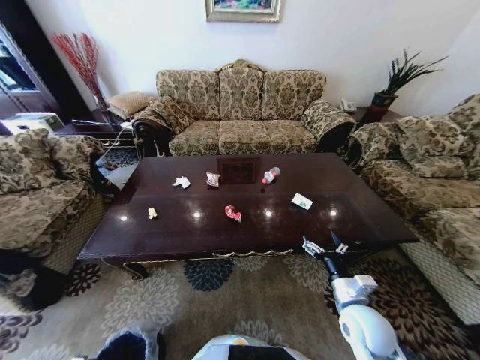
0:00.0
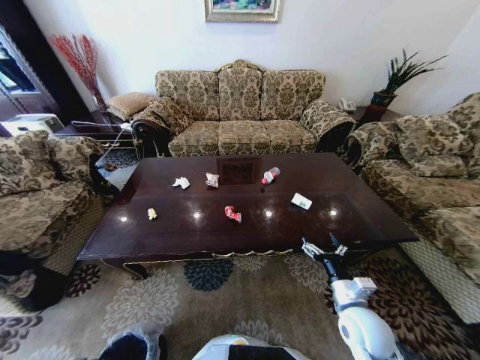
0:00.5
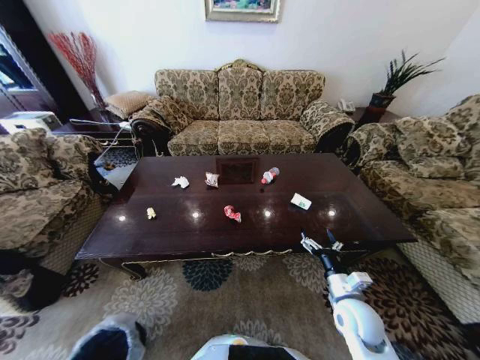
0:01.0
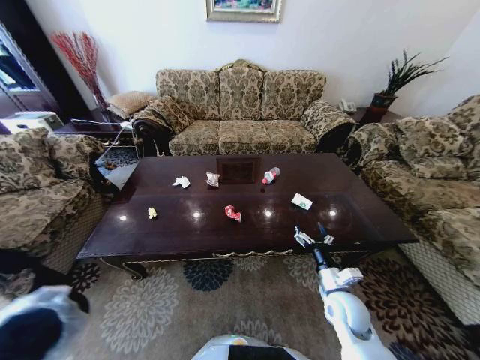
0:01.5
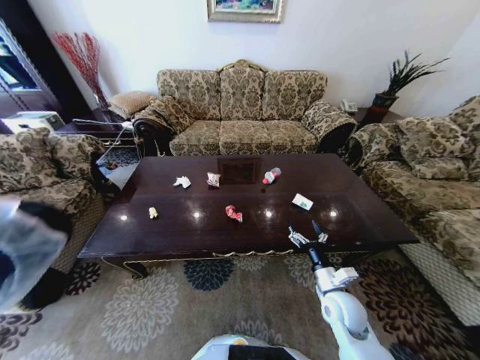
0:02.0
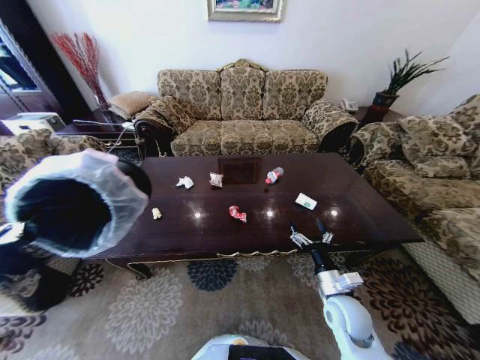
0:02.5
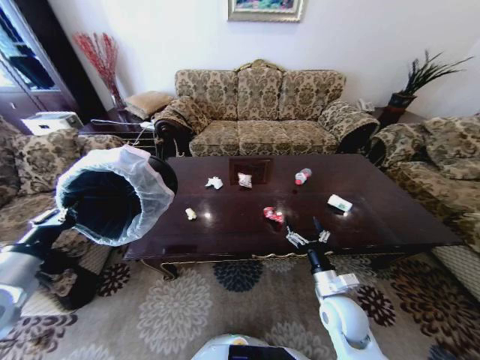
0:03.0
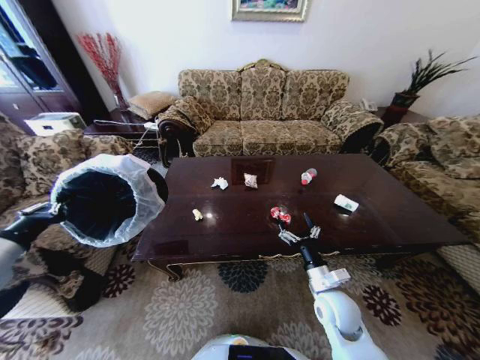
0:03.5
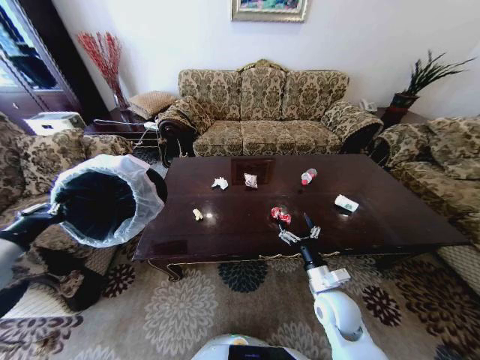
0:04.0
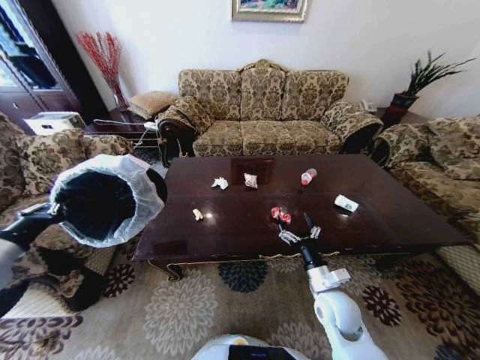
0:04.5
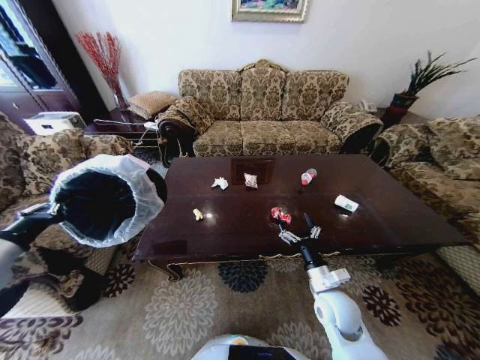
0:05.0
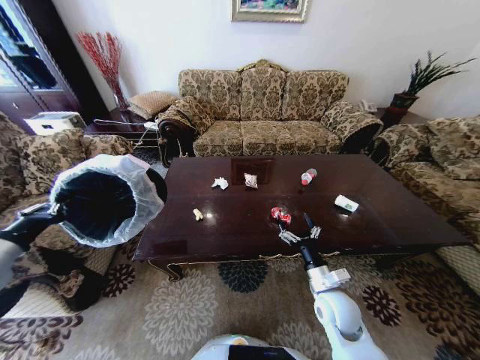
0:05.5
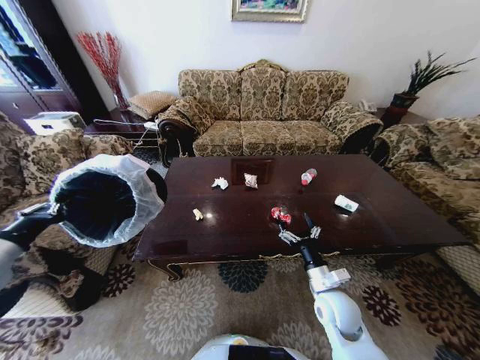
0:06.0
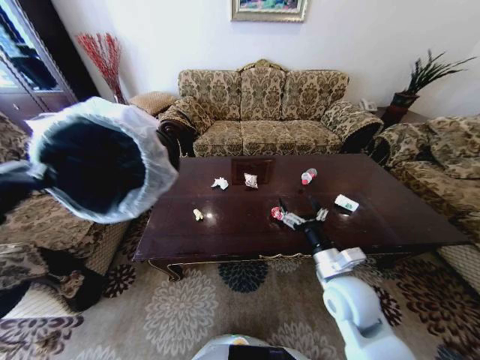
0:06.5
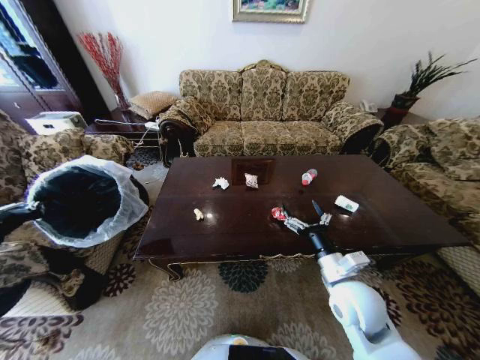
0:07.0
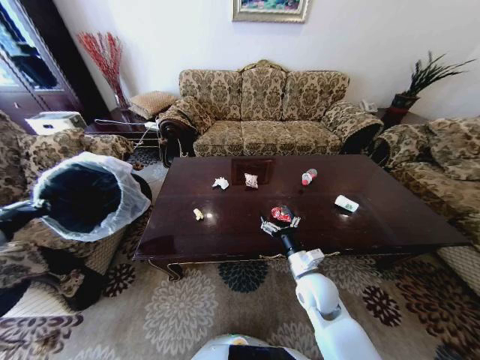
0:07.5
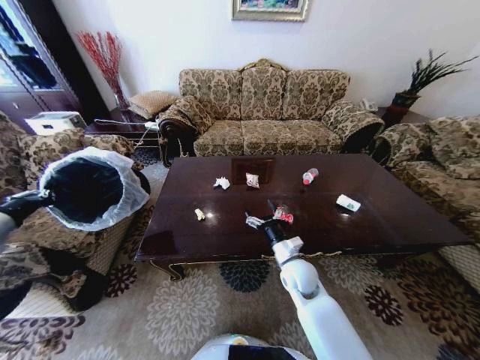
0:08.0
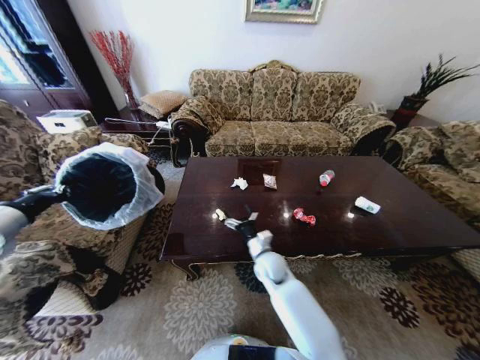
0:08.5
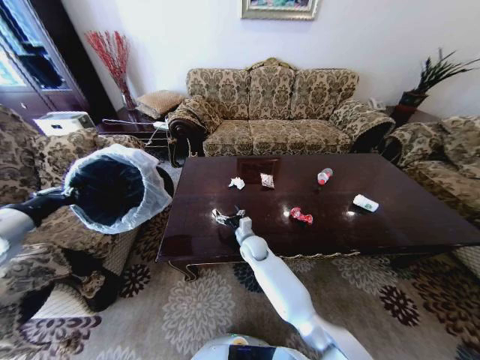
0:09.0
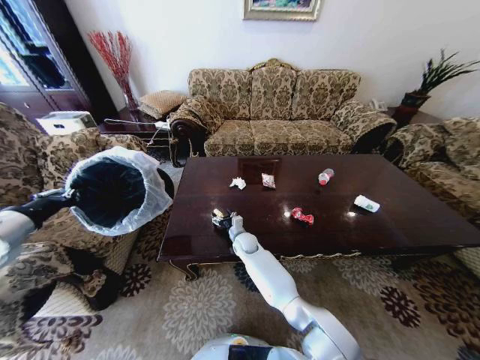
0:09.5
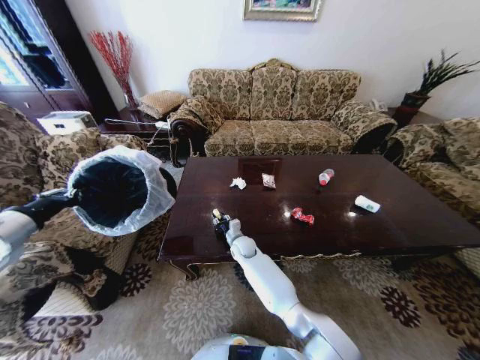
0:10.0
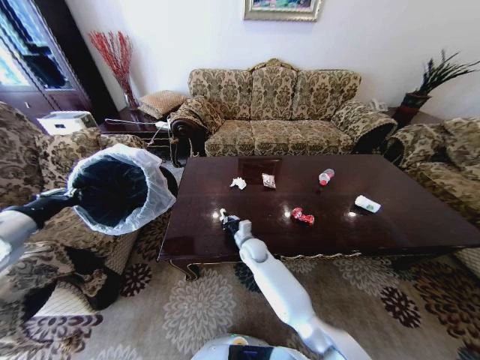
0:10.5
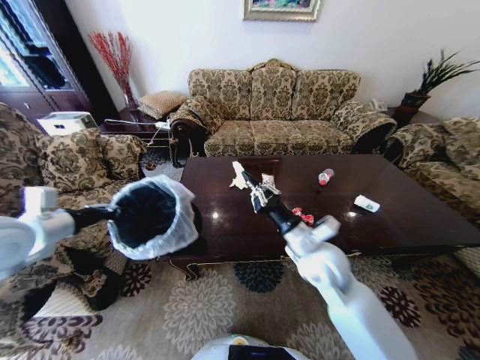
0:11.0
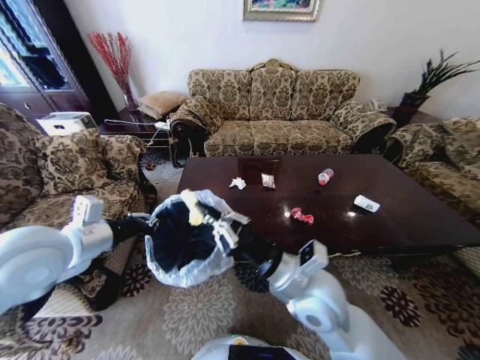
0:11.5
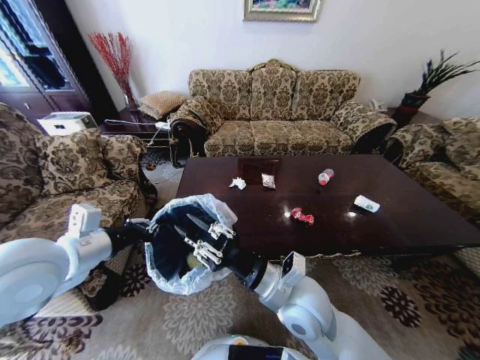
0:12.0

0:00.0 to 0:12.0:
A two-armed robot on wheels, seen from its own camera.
Task of the whole recording: Move to the front of the table and place the trash on the table into the trash bin.
0:00.0 to 0:02.0: The right gripper ends up approximately 5 cm from where it was, while the left gripper moves upward, about 40 cm.
0:02.0 to 0:04.0: The left gripper goes about 25 cm forward and to the right.
0:04.0 to 0:06.0: The two grippers keep their place.
0:06.0 to 0:08.0: The right gripper shifts about 10 cm to the left and forward, and moves about 10 cm upward and comes back. Meanwhile the left gripper travels forward by roughly 5 cm, and moves approximately 10 cm to the right and comes back.
0:08.0 to 0:10.0: The left gripper heads to the right, covering approximately 5 cm, while the right gripper shifts roughly 25 cm to the left, forward and downward, and closes.
0:10.0 to 0:12.0: The left gripper is displaced to the right by some 15 cm. Meanwhile the right gripper travels backward, upward and to the right by some 35 cm.

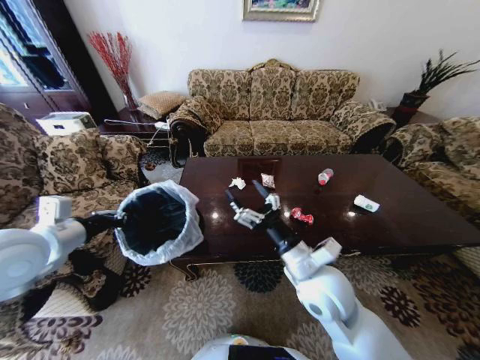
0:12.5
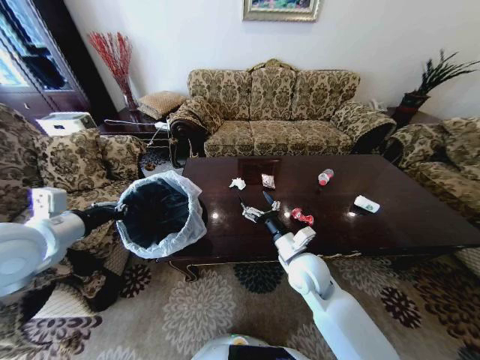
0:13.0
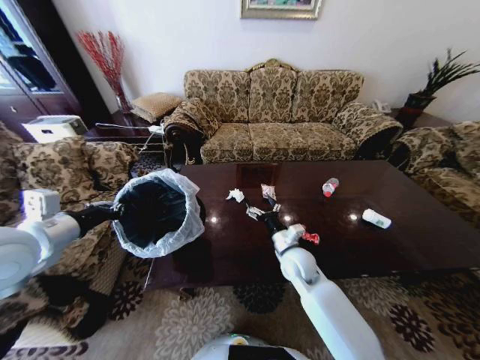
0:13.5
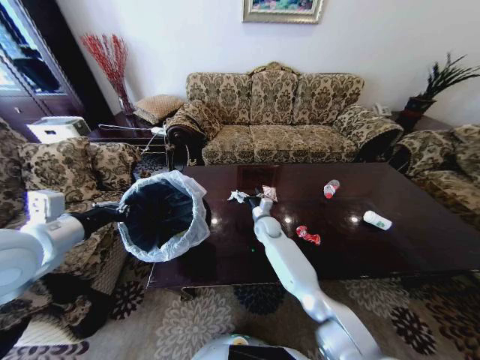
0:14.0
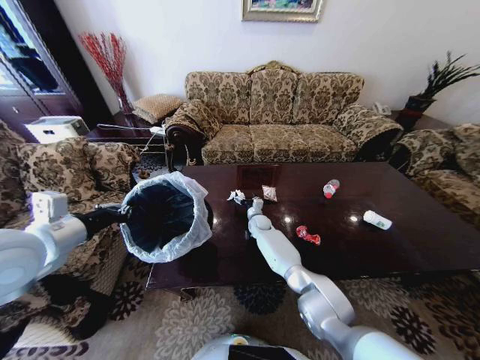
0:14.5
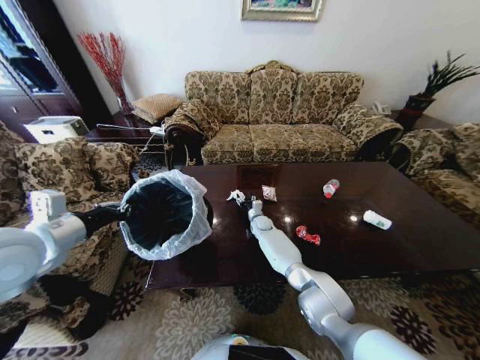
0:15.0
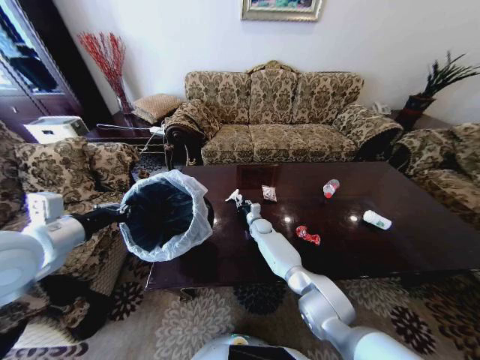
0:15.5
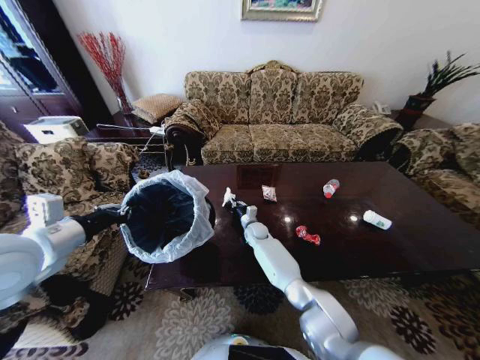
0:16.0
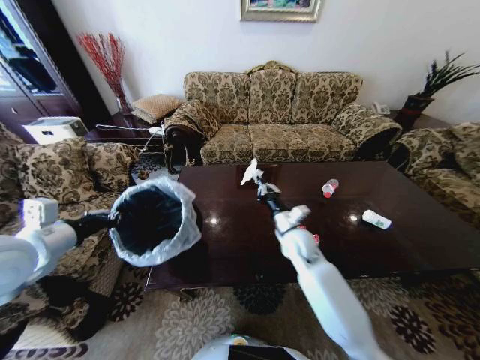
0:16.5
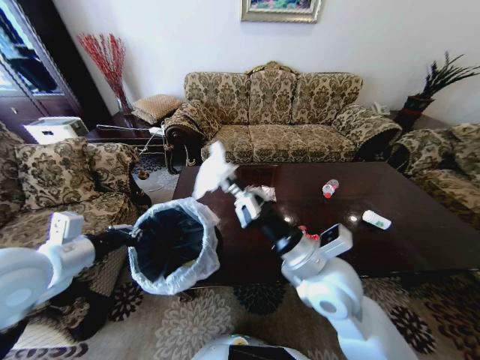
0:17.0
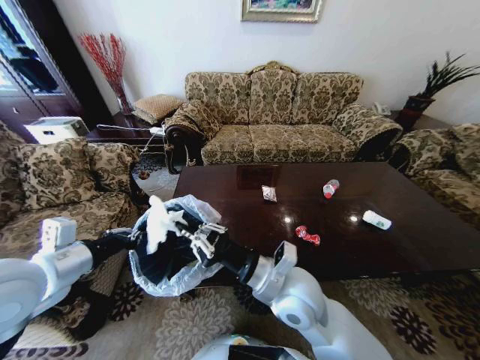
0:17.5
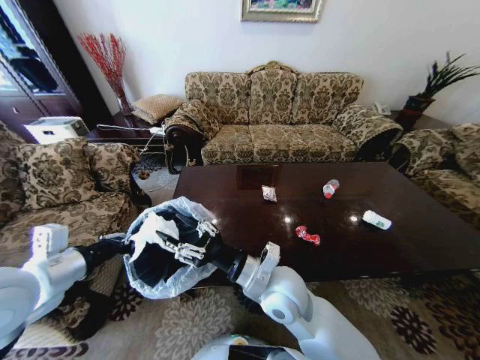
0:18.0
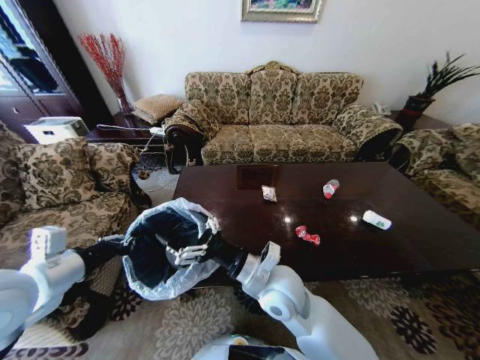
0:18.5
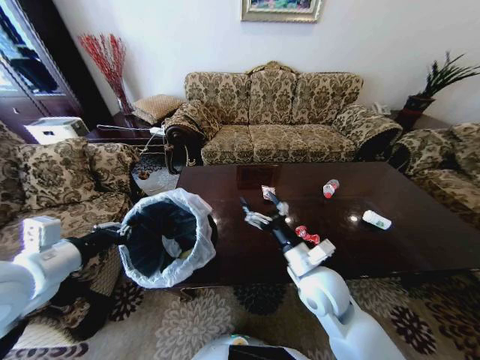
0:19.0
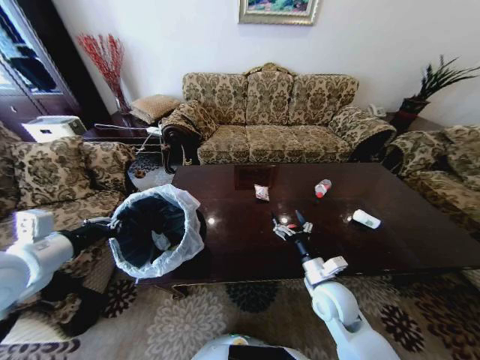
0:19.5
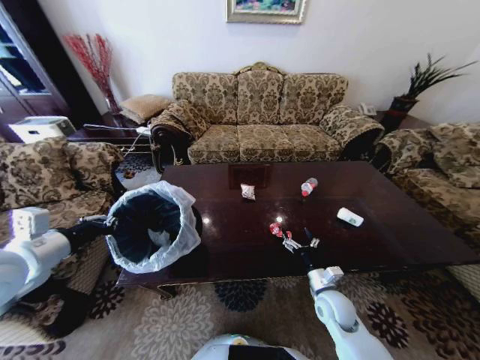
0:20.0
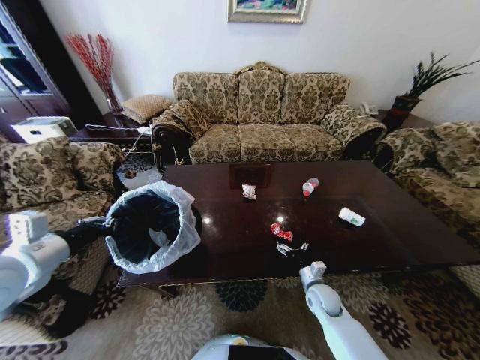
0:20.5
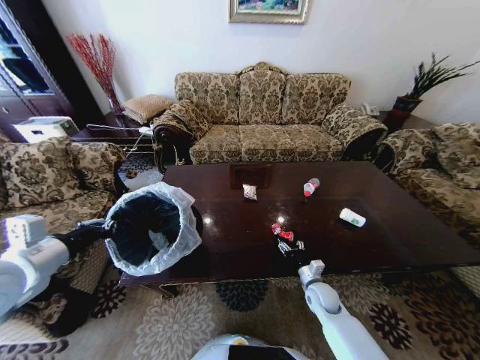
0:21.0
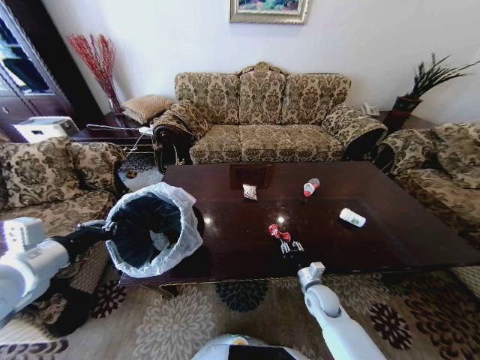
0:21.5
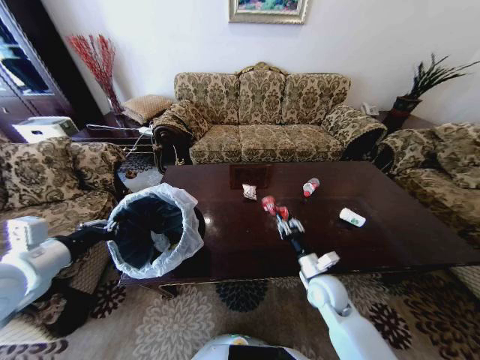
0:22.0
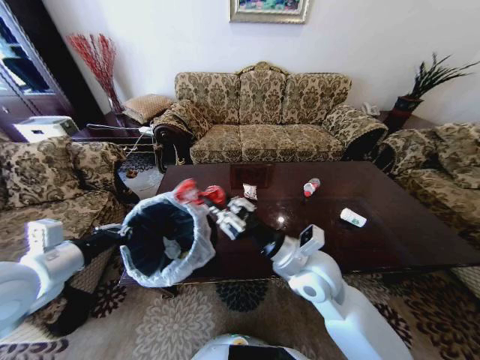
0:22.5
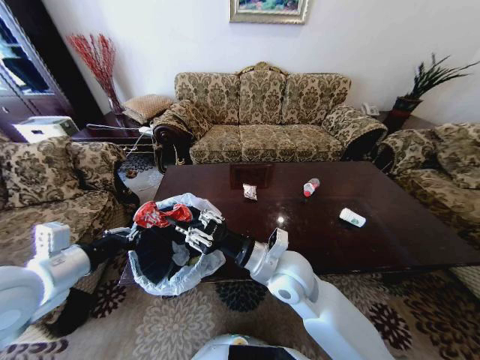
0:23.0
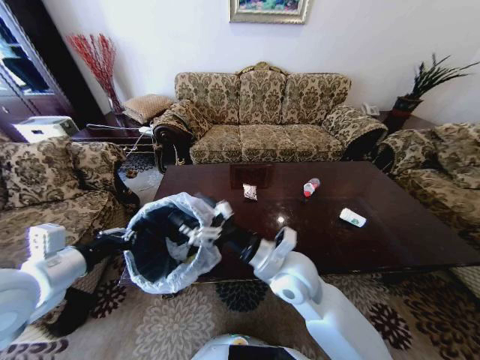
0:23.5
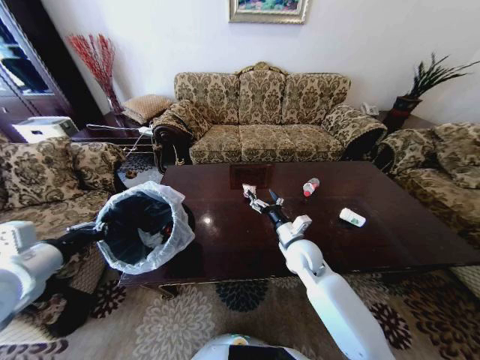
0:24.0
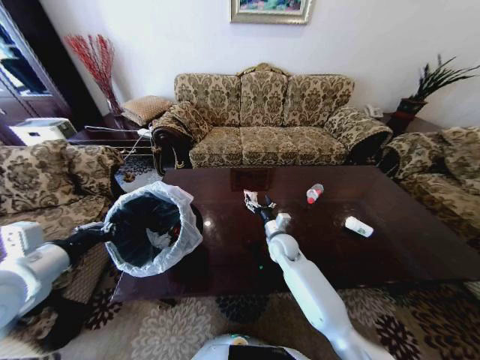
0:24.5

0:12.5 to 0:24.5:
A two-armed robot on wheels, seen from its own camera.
Task of the whole recording: Move to the front of the table and place the trash on the table into the trash bin.
0:12.5 to 0:14.5: The right gripper heads forward and downward, covering roughly 40 cm.
0:14.5 to 0:16.5: The right gripper moves backward, upward and to the right, about 25 cm, and closes up.
0:16.5 to 0:18.5: The left gripper changes place by some 5 cm, while the right gripper goes about 15 cm backward and to the left, and opens up.
0:18.5 to 0:20.5: The right gripper moves downward and to the right, some 30 cm.
0:20.5 to 0:22.5: The right gripper moves upward and to the left, about 30 cm, and closes up.
0:22.5 to 0:24.5: The right gripper heads downward and forward, covering some 25 cm, and opens its fingers.

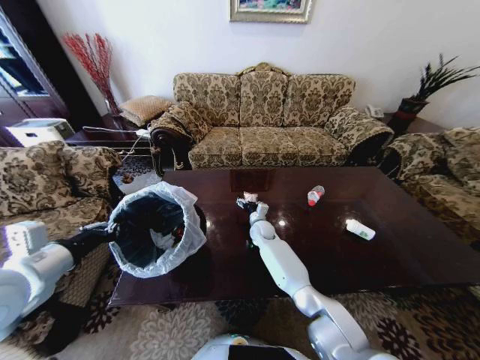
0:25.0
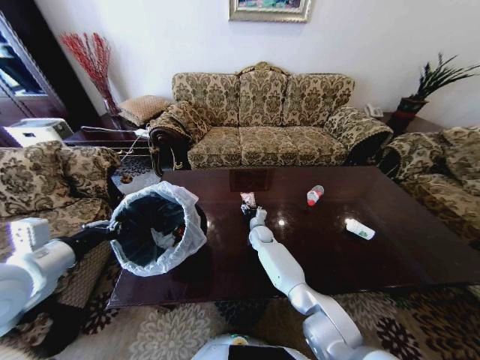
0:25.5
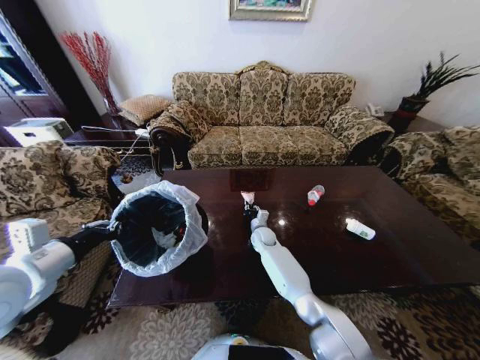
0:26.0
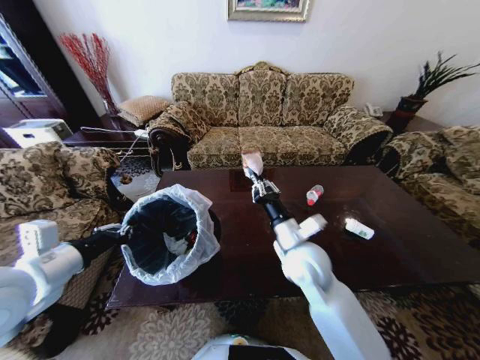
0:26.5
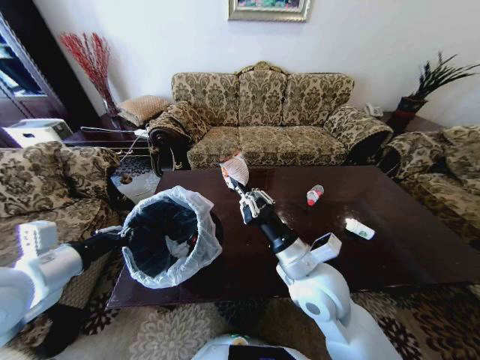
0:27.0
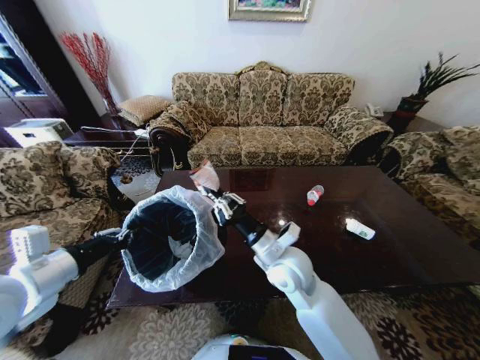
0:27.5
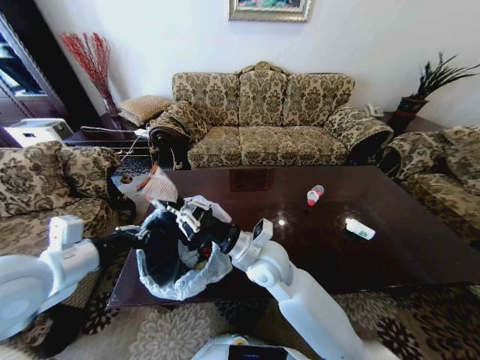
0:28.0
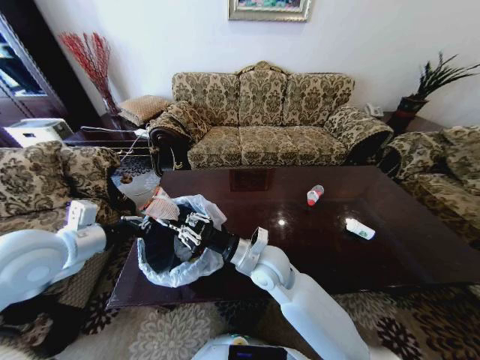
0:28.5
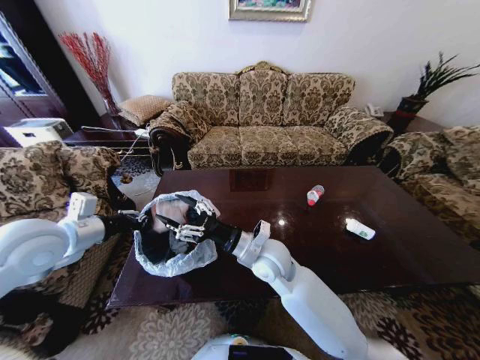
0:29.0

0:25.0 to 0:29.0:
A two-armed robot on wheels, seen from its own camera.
Task of the whole recording: Move to the front of the table and place the trash on the table into the trash bin.
0:25.0 to 0:27.0: The right gripper is displaced backward and upward by some 35 cm, and closes.
0:27.0 to 0:29.0: The left gripper heads forward, covering some 10 cm. The right gripper shifts some 10 cm to the left and forward, and opens its fingers.
